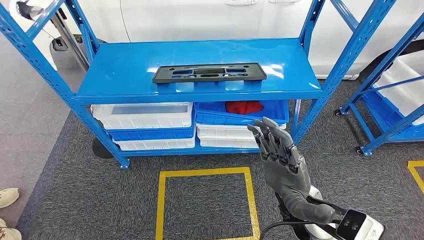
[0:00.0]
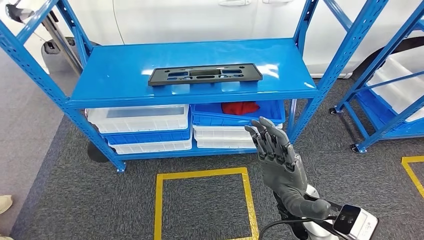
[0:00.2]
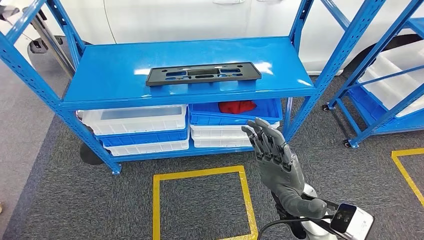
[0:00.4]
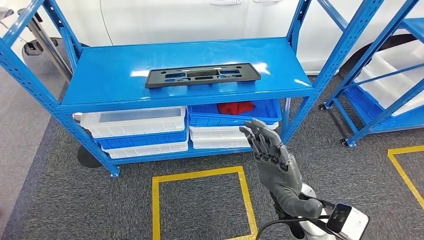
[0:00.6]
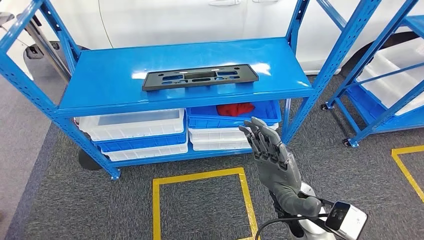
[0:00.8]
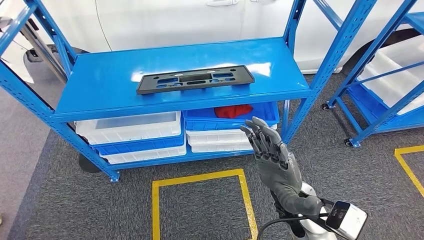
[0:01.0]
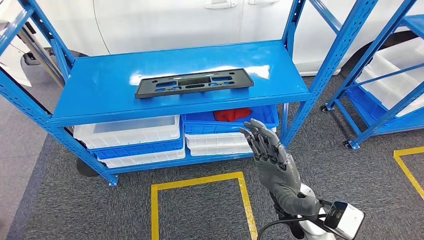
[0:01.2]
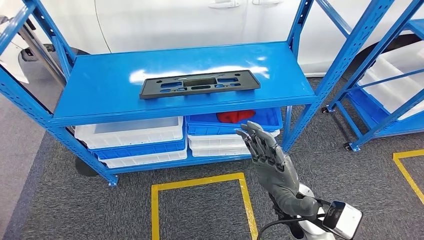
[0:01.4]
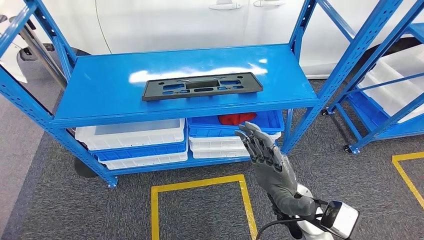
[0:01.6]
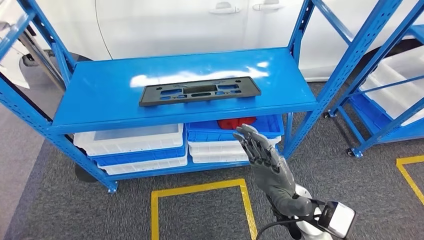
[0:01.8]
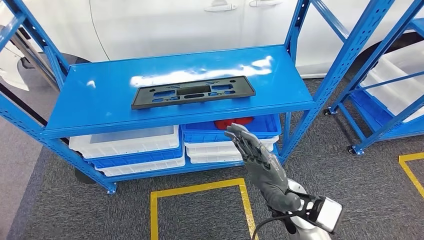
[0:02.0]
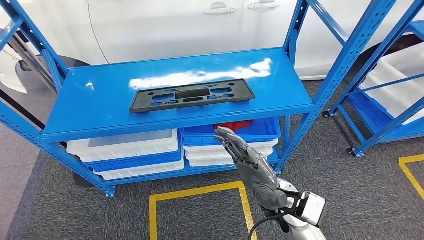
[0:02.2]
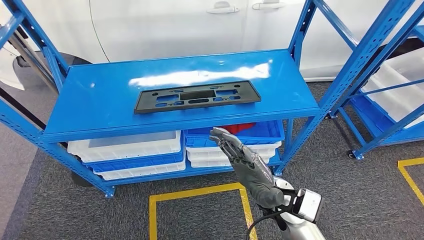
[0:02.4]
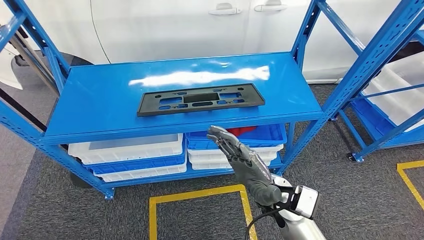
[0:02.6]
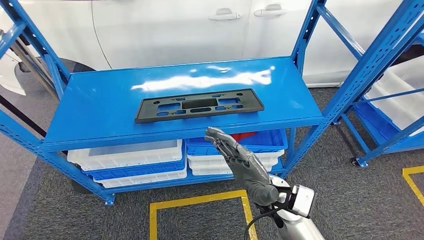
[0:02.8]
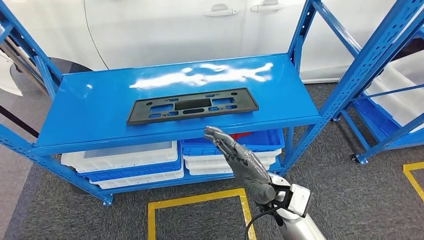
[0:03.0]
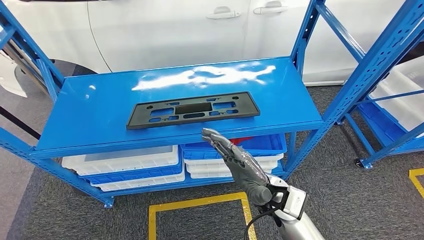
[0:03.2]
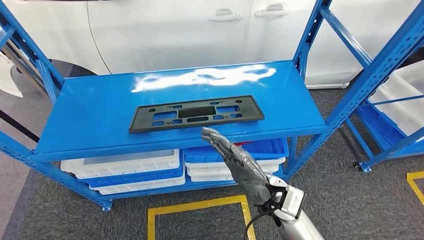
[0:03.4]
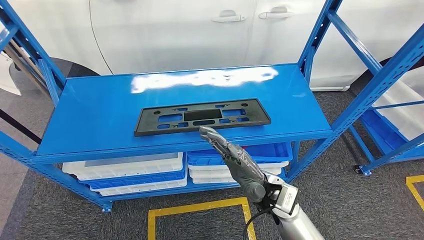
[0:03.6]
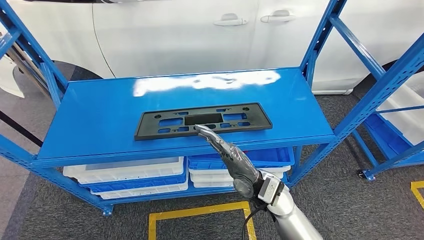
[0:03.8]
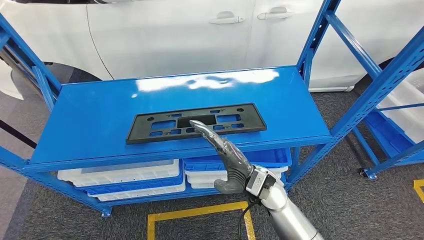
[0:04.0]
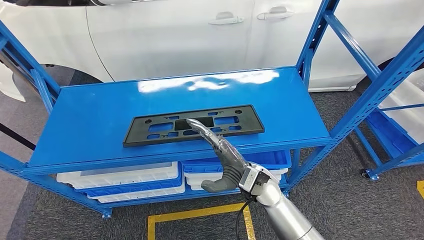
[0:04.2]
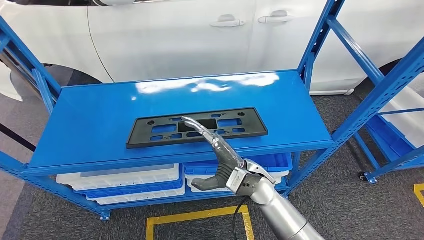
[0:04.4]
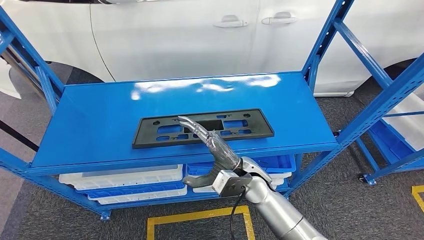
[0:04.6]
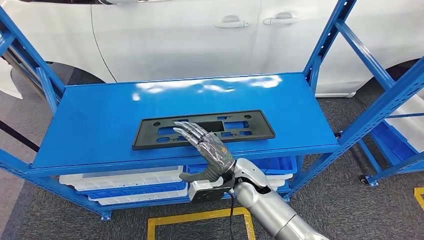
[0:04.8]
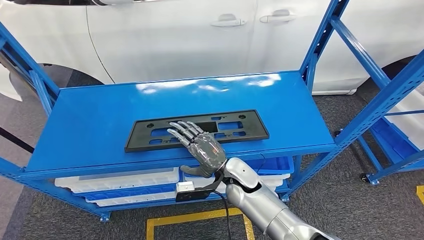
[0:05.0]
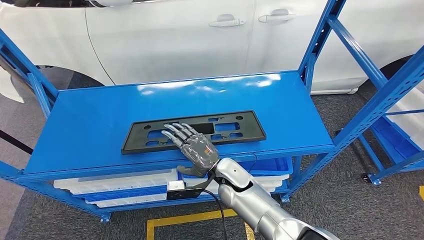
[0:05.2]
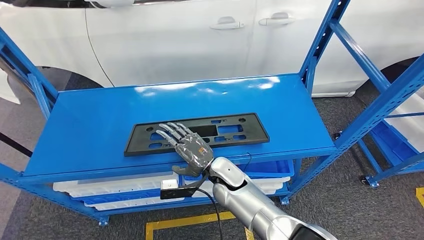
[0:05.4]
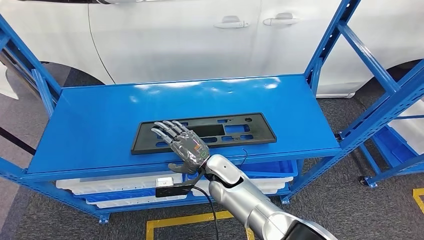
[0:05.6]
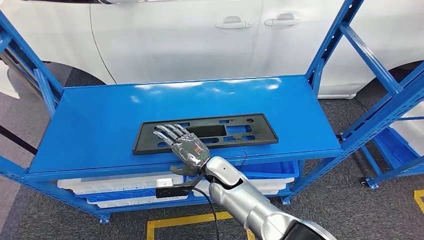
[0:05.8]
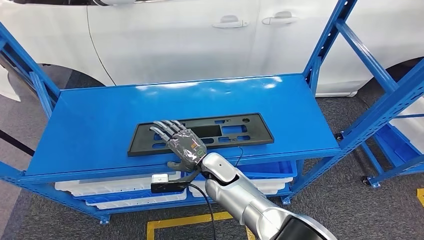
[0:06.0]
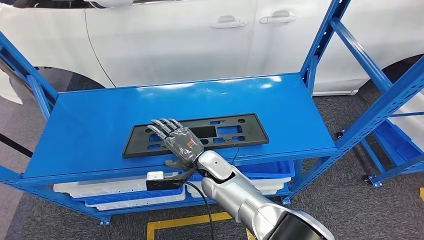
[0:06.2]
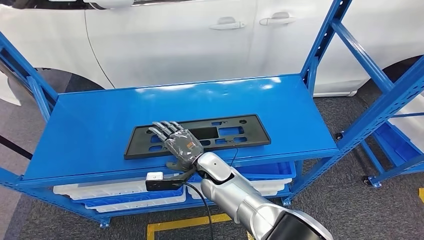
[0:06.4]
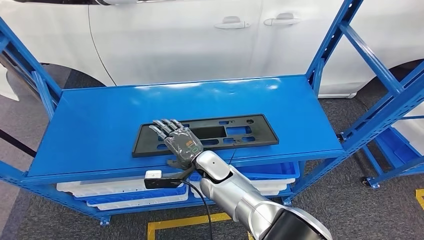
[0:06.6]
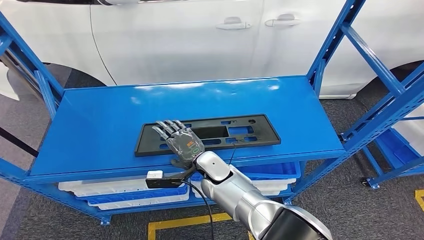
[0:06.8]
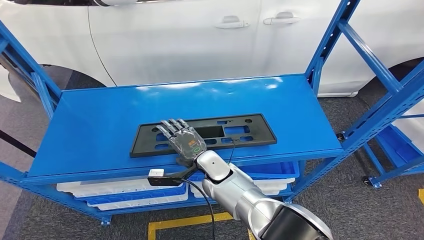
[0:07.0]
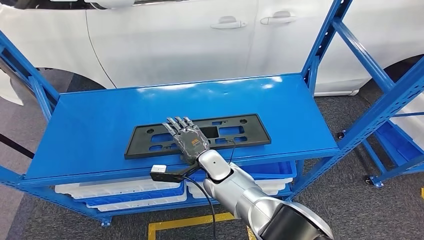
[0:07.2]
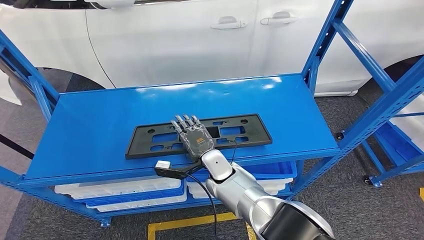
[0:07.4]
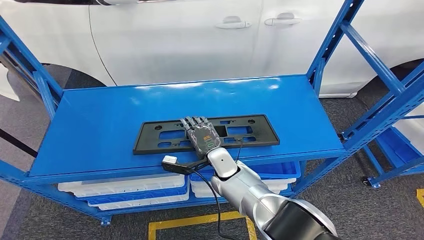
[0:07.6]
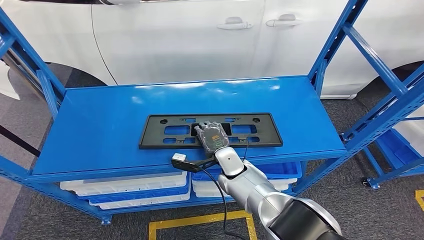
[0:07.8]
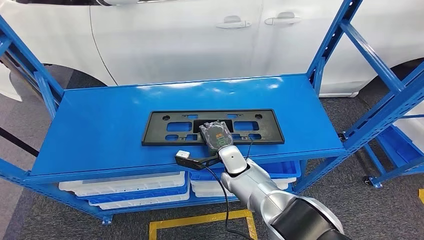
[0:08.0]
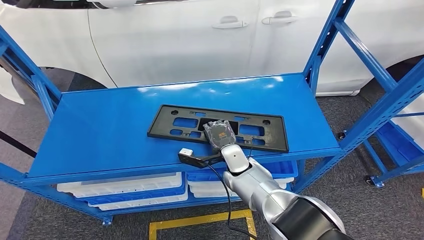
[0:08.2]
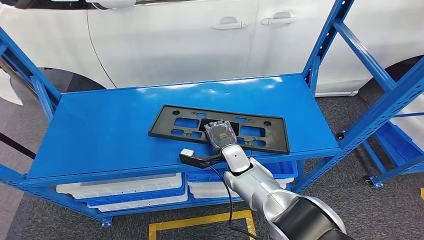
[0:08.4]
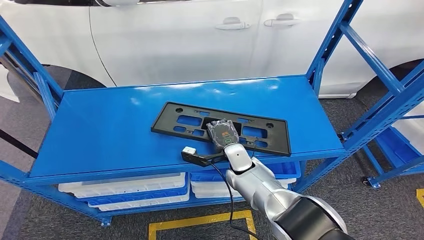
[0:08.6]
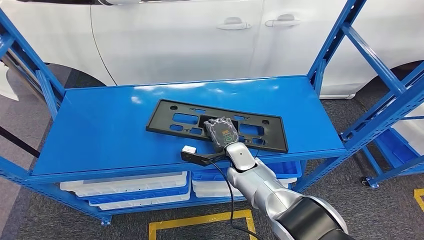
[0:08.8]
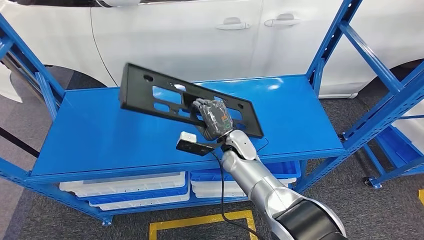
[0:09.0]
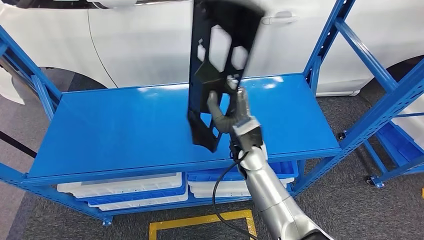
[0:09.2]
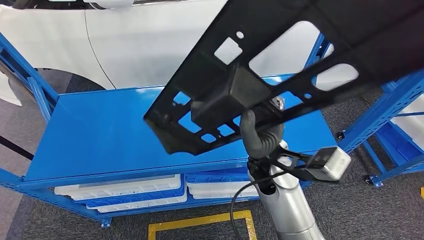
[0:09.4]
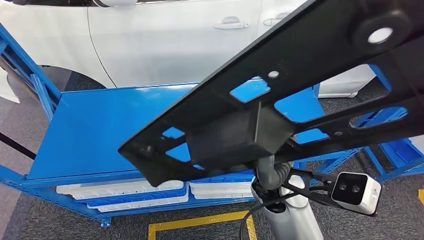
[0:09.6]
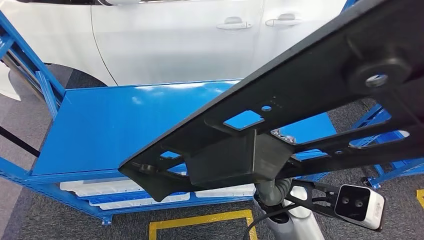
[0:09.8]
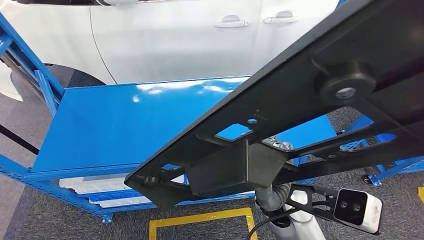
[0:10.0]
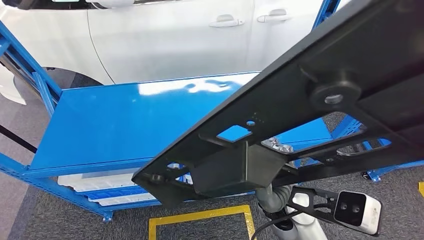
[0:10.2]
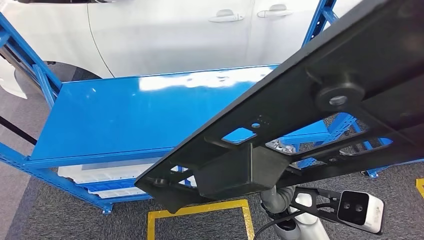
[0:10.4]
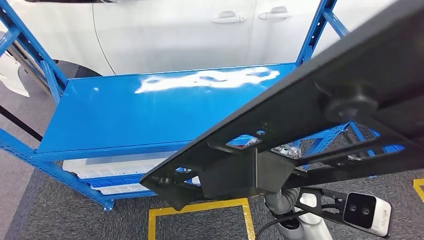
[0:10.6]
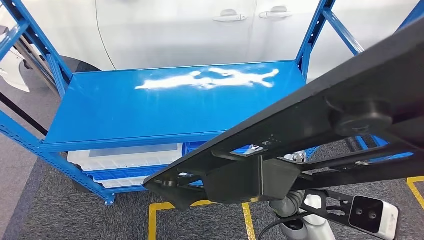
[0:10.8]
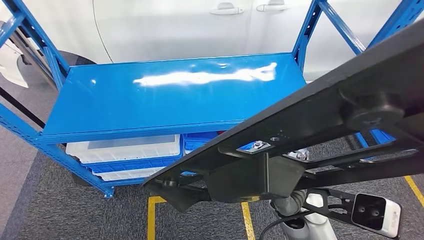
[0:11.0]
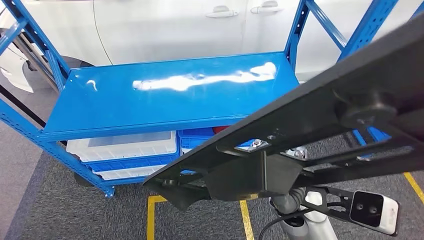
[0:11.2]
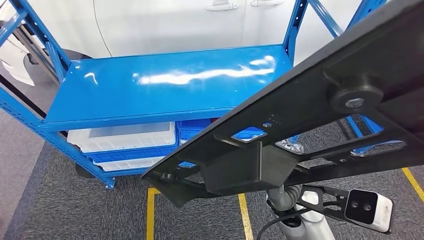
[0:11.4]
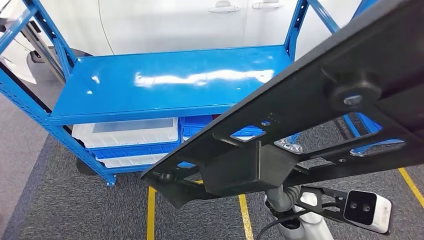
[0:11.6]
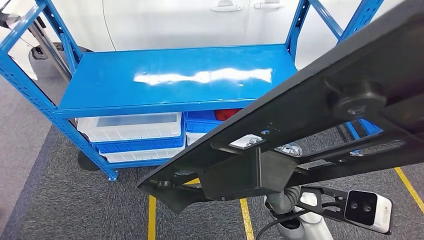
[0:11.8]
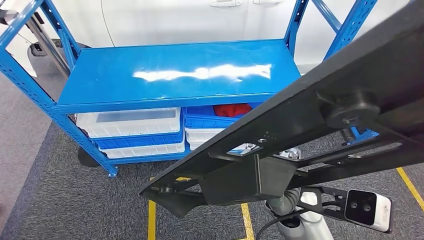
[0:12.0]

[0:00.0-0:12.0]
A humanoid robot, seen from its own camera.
Step, 0:00.0 to 0:09.4: Pick up the large material from the shelf.
0:07.6 to 0:09.0: The right hand moves roughly 5 cm.

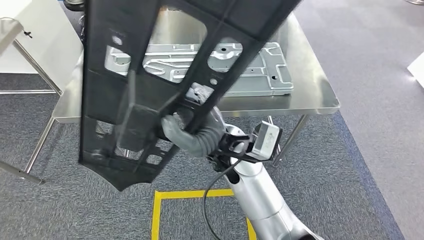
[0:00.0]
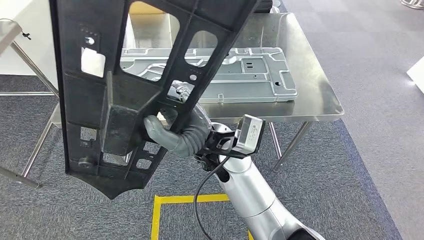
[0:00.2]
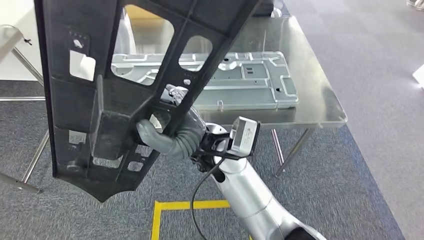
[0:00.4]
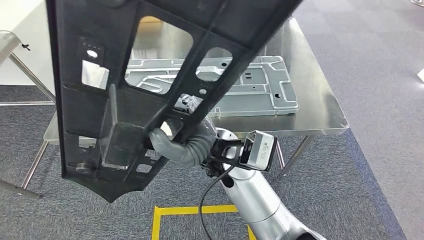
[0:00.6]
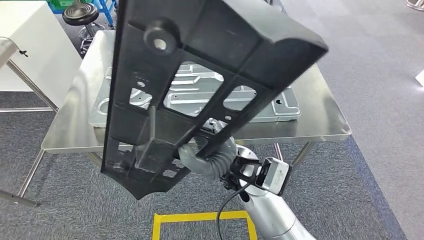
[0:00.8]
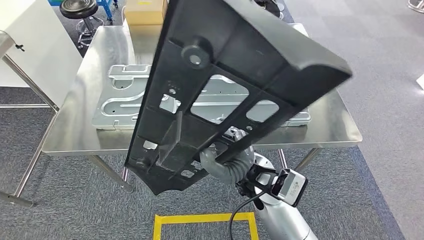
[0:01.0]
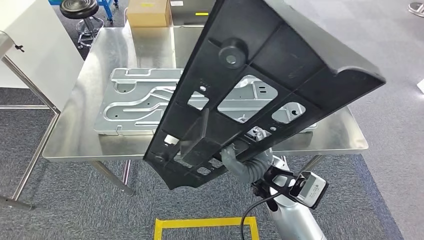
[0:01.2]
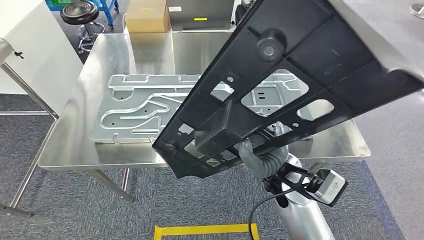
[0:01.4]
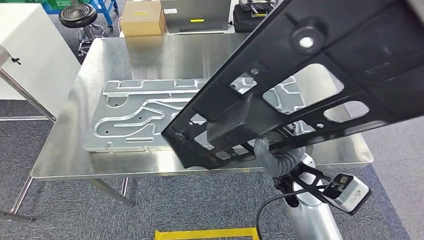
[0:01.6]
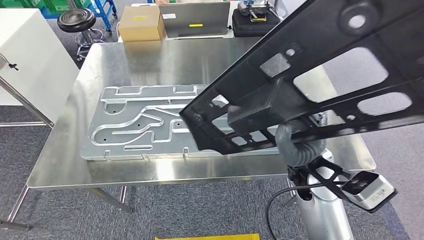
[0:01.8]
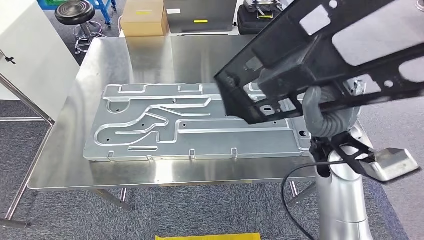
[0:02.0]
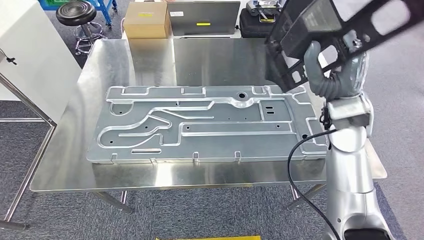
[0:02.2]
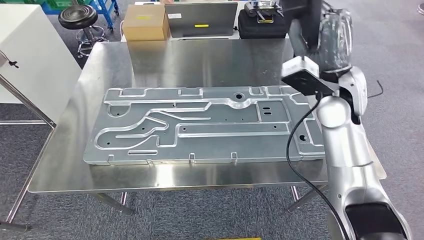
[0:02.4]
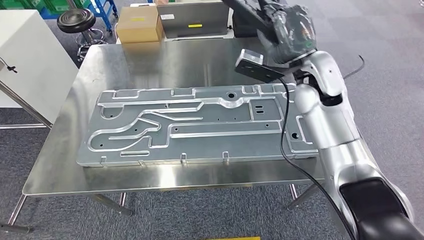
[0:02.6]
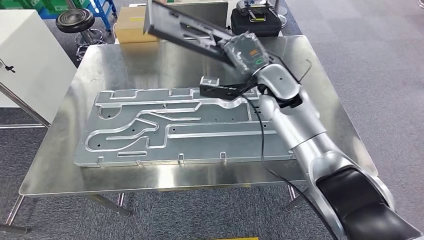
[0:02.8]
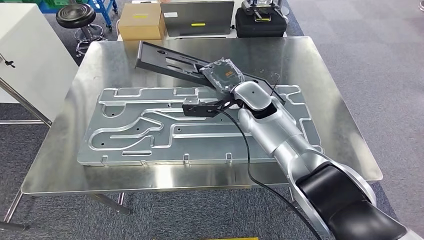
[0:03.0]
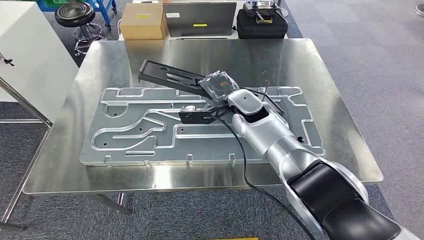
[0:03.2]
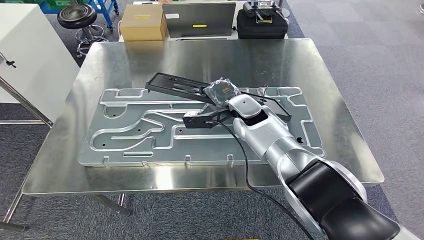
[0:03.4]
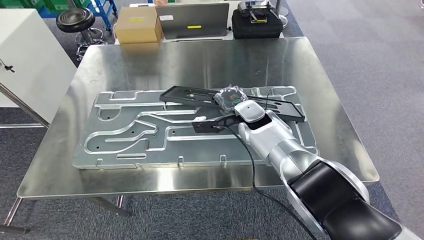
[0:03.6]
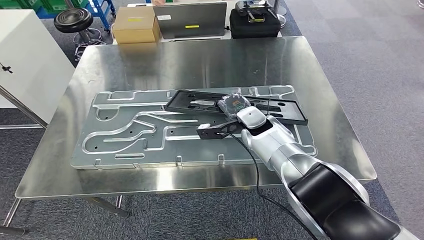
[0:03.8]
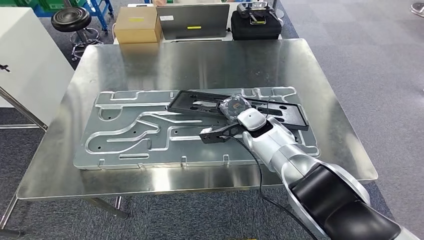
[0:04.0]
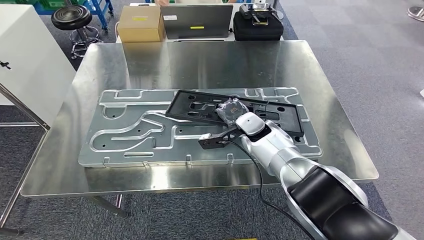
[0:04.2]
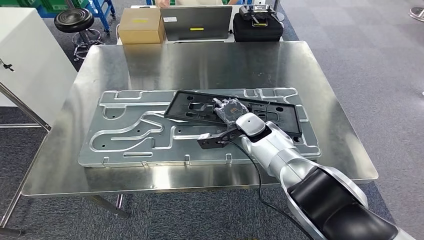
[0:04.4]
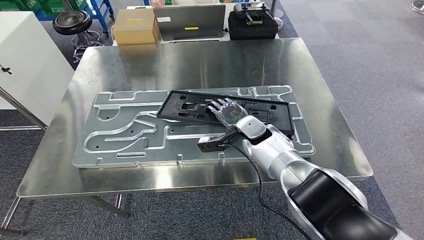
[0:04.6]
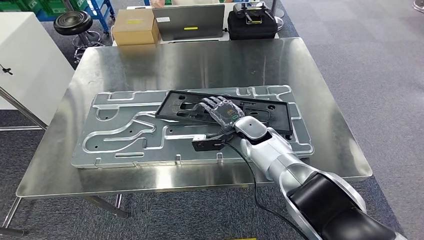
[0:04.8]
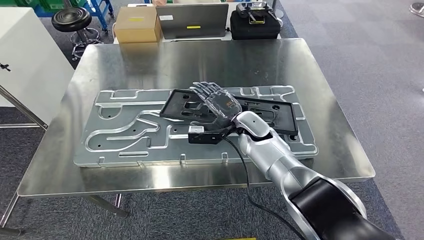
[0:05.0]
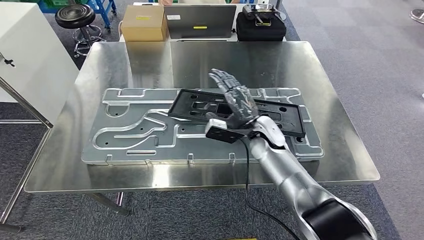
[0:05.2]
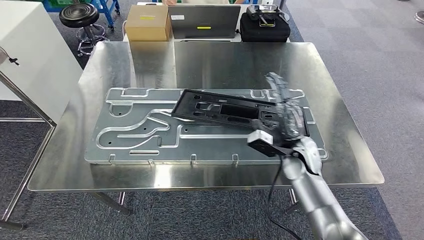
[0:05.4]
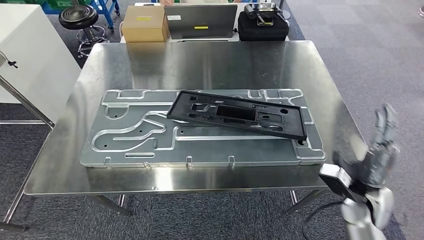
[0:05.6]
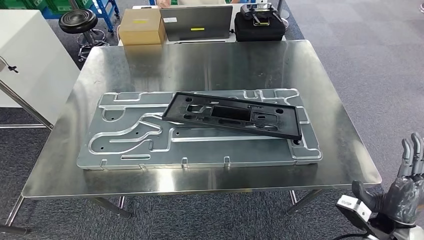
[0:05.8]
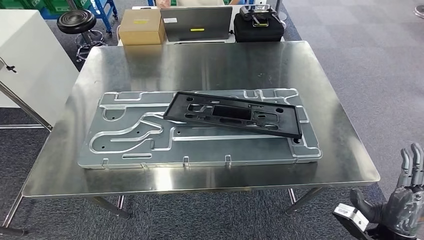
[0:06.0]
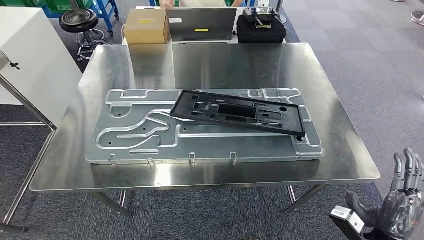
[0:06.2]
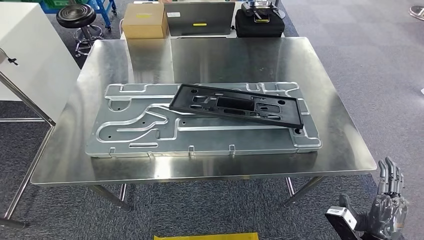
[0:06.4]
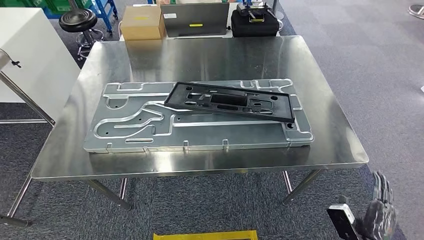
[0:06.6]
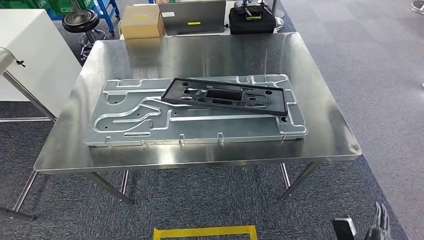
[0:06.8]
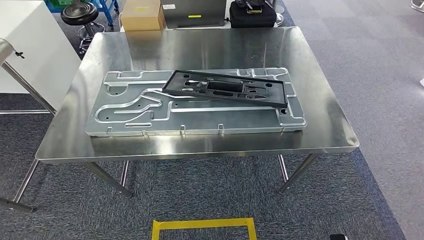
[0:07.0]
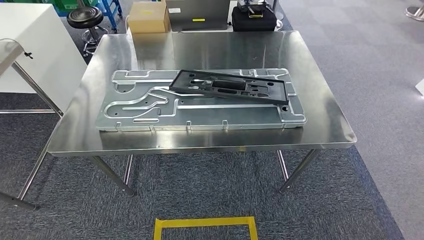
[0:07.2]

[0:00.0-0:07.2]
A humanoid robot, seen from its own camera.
Step, 0:02.4 to 0:06.4: Insert the large material into the corresponding slot on the workbench.
